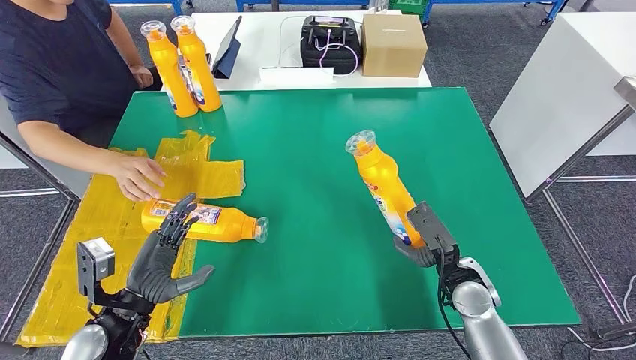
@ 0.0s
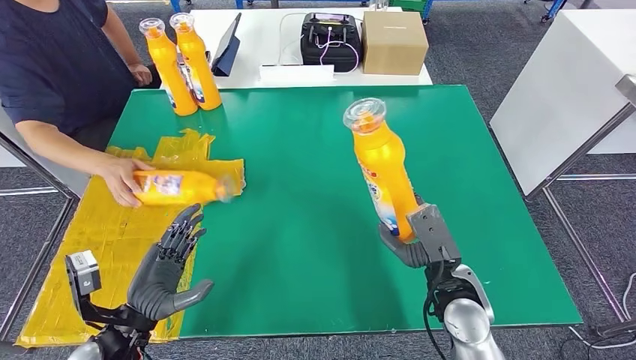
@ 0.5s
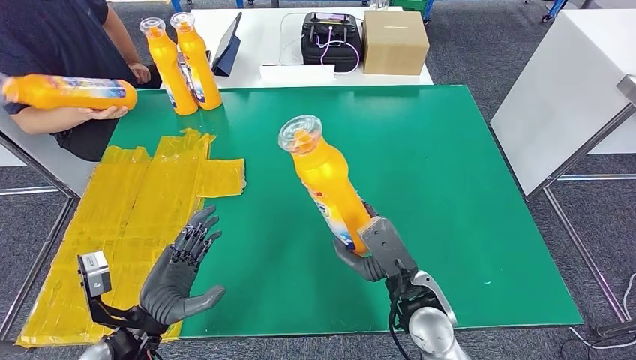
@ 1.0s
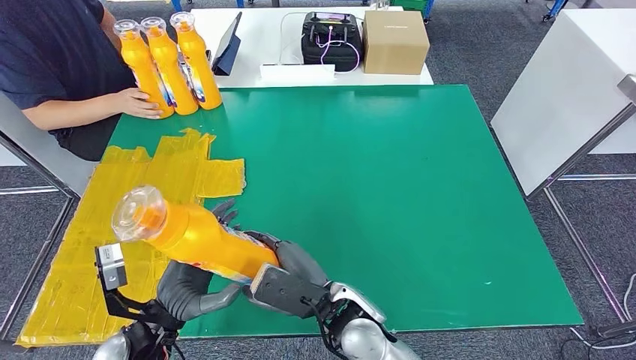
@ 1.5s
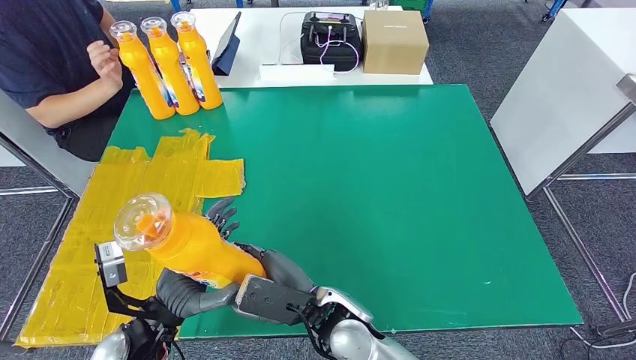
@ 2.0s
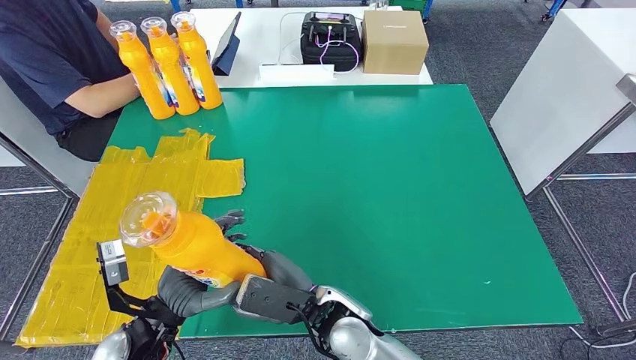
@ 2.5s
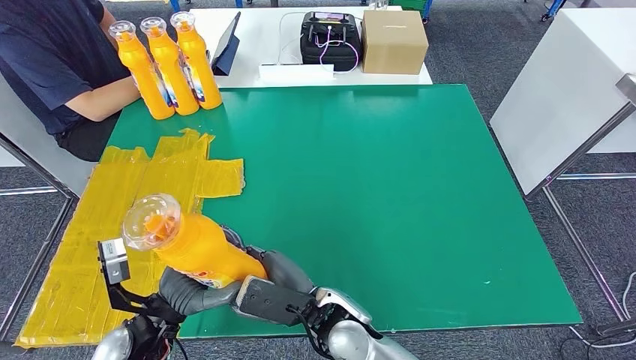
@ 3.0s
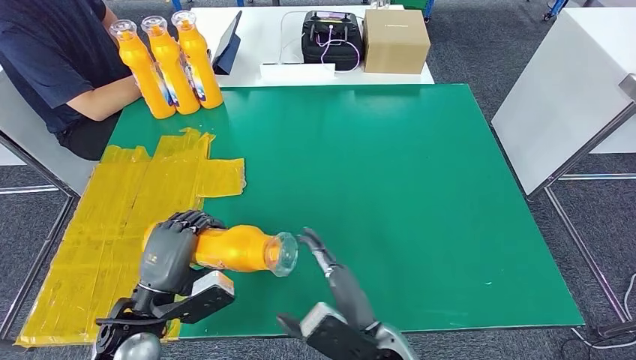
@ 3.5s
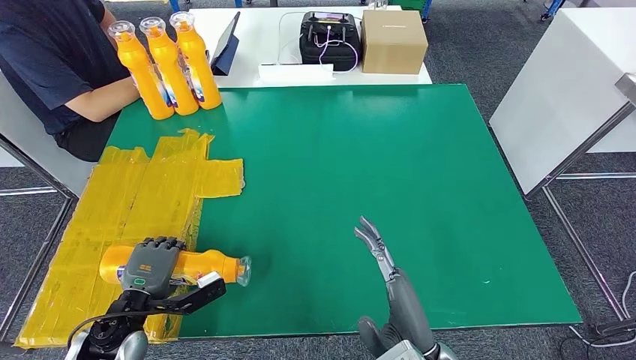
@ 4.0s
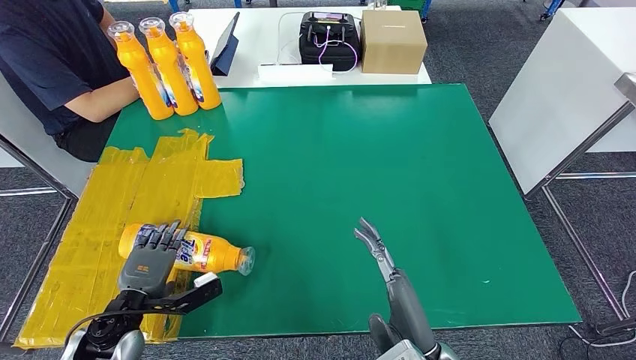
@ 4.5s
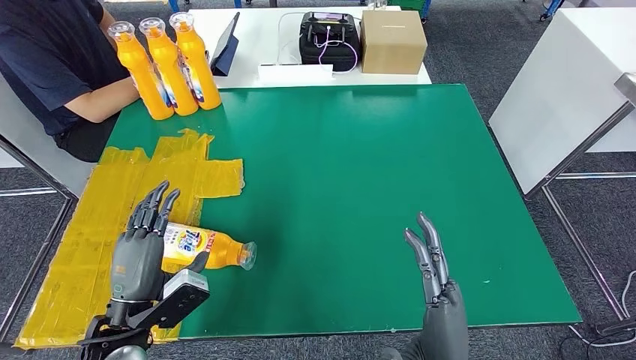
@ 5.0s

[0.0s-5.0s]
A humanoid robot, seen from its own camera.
Step, 0.0s to 1.5s: Pick up the fast-moving consumer goods bottle from the table.
Step, 2.0s to 5.0s: Flip the fast-moving consumer goods bottle to the front side.
2.5s to 5.0s: The right hand heads to the right, backward and upward, covering roughly 20 cm.
